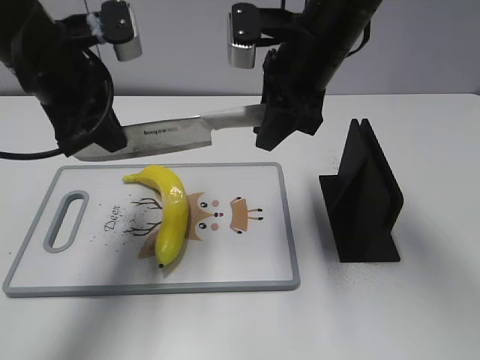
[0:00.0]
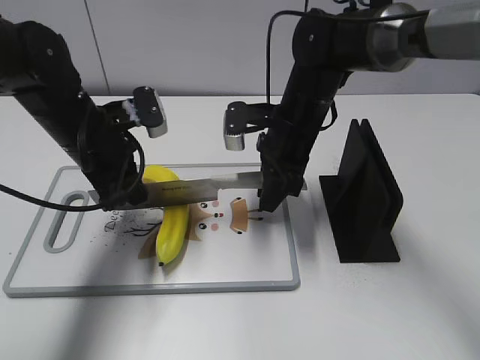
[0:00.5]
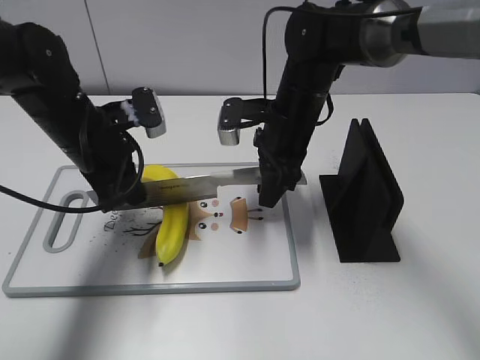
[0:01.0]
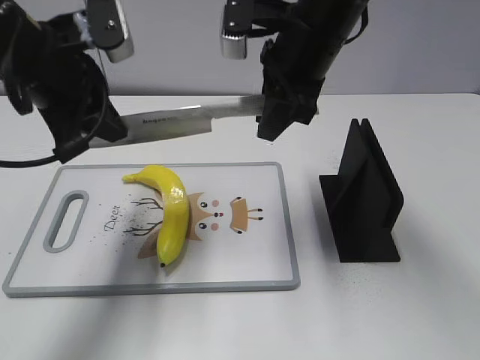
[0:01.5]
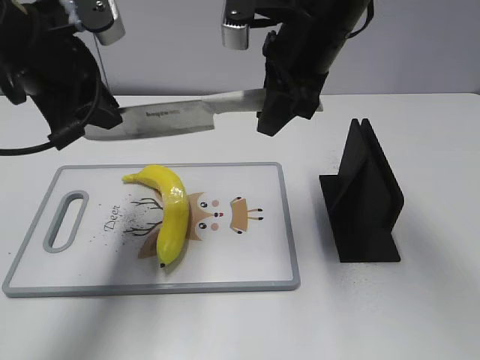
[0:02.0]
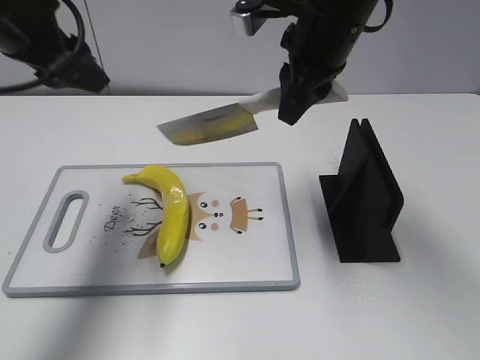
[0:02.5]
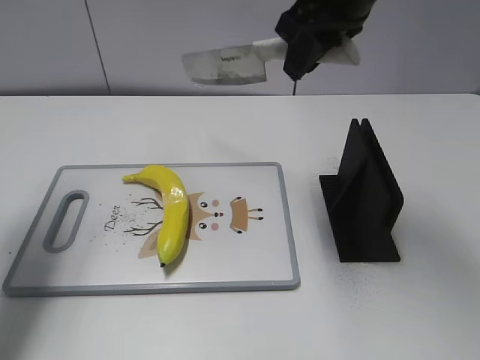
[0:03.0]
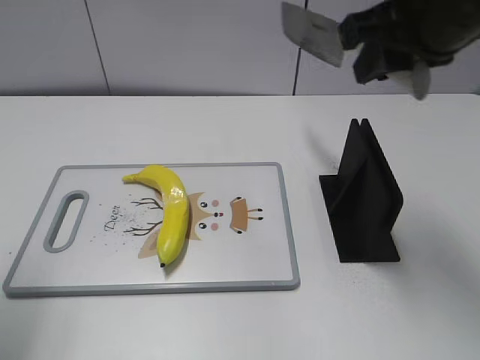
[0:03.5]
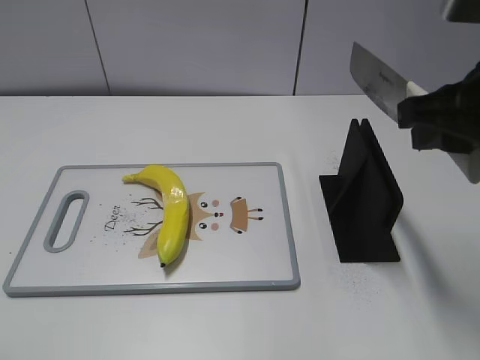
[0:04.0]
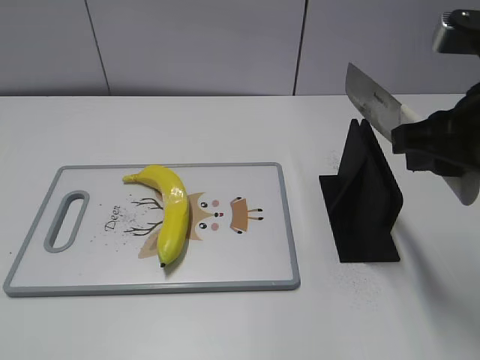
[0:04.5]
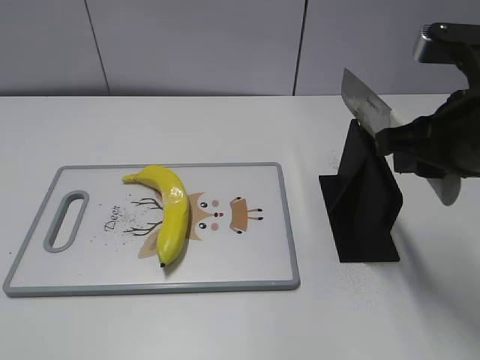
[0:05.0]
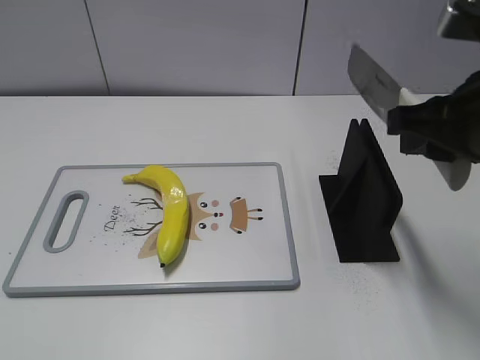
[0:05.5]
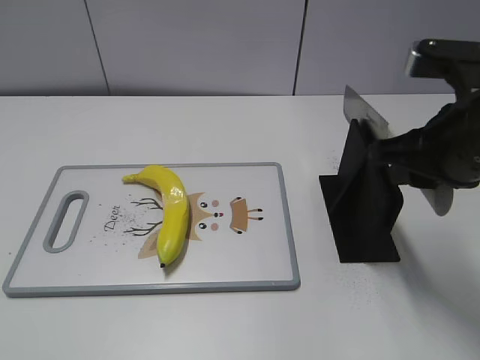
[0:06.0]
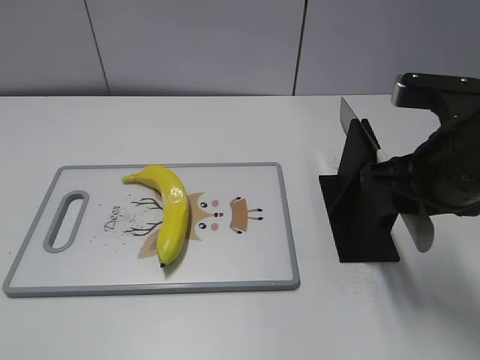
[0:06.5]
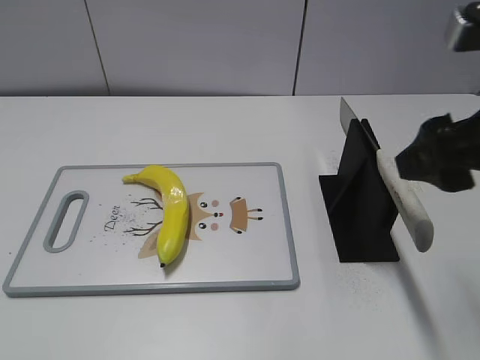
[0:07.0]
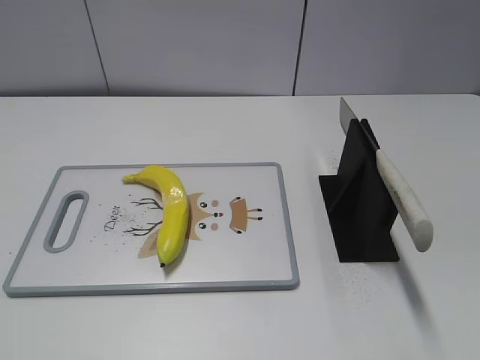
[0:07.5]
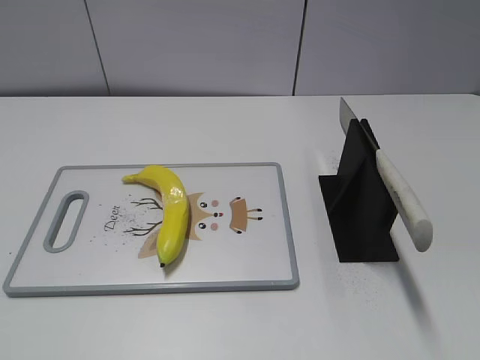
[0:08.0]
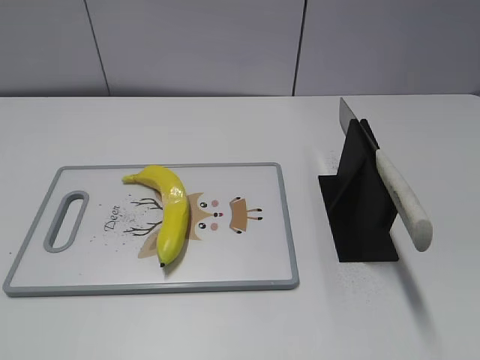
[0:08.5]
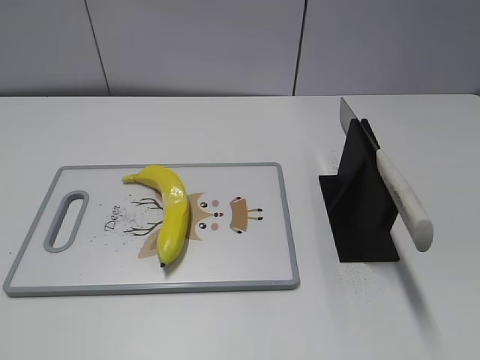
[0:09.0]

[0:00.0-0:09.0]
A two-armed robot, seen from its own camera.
Task of the whole recording: cut plastic banana.
Step, 0:01.5 to 0:02.5: Cut the banana with your right hand.
Step, 0:03.0 to 0:04.0: Lift the knife with your right hand.
Step, 0:04.5 to 0:09.0: Place the knife on the storage rack with your right hand.
0:00.0 to 0:02.0: The left gripper goes downward and returns, some 10 cm each way. The right gripper moves approximately 10 cm downward and comes back.
0:02.0 to 0:04.5: The right gripper shifts approximately 20 cm backward and to the right; the left gripper is displaced backward and to the left by approximately 35 cm, and opens its fingers.
0:04.5 to 0:07.0: The right gripper opens its fingers.
0:07.0 to 0:09.0: The right gripper moves backward and to the right, about 25 cm.
